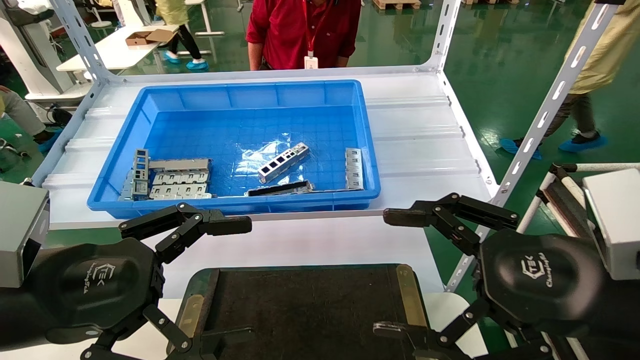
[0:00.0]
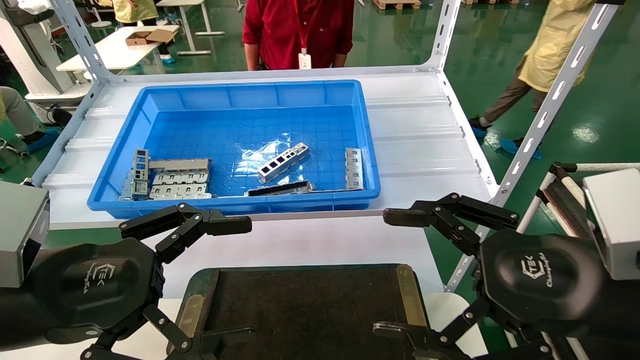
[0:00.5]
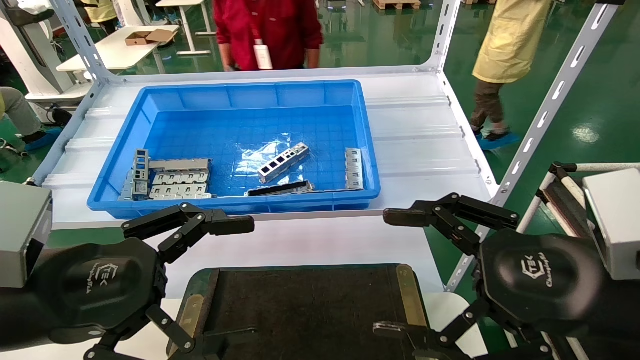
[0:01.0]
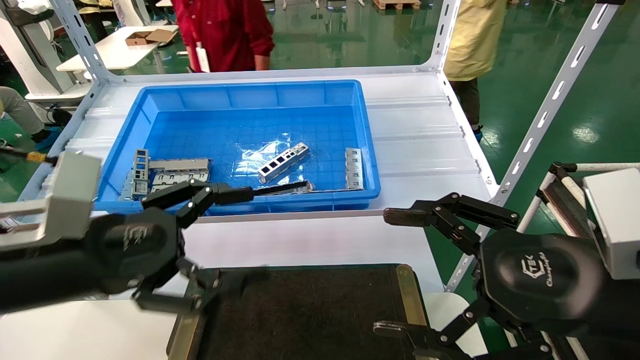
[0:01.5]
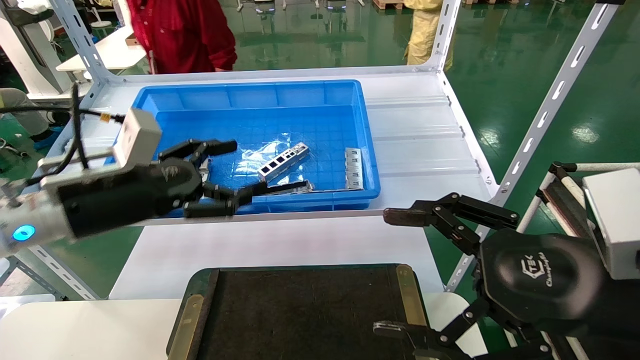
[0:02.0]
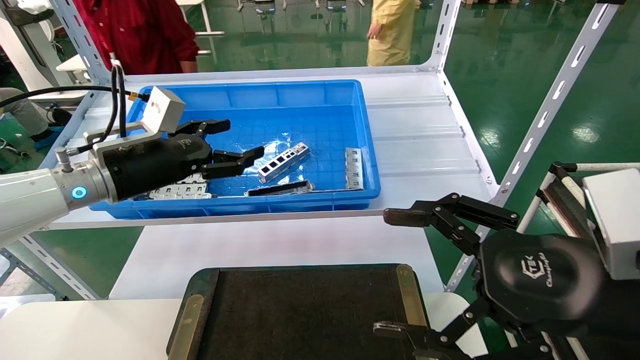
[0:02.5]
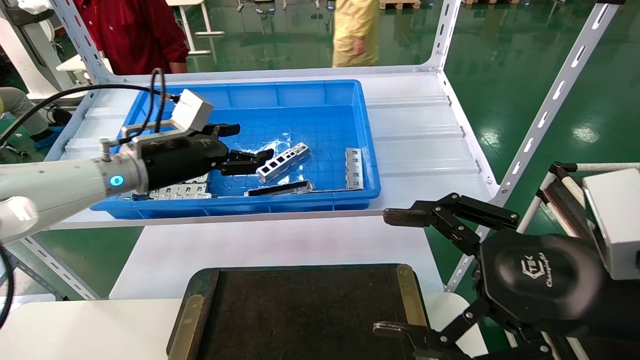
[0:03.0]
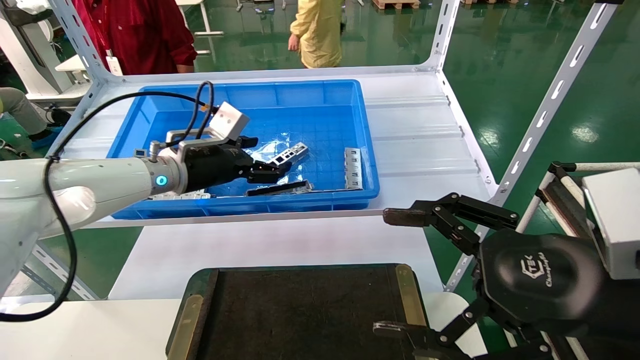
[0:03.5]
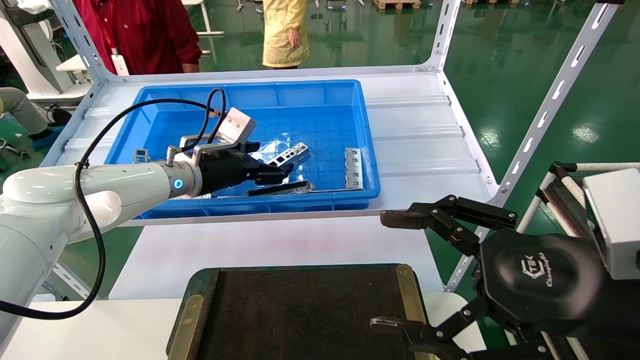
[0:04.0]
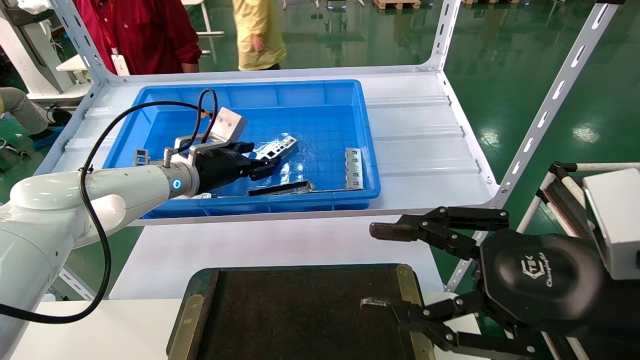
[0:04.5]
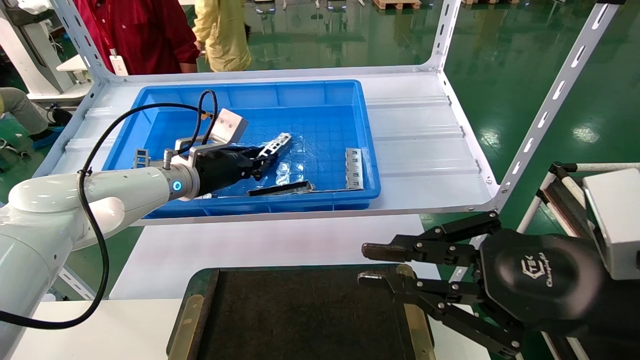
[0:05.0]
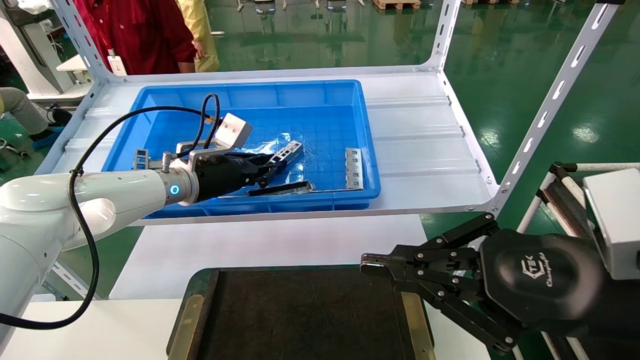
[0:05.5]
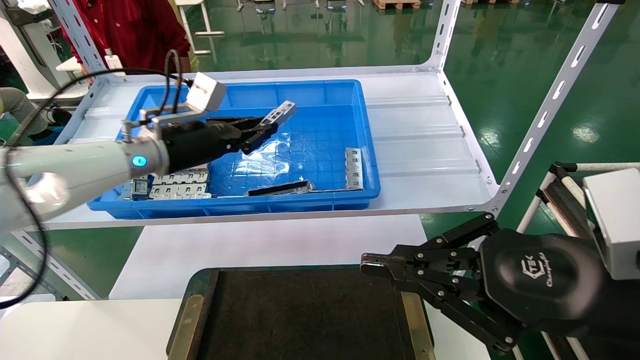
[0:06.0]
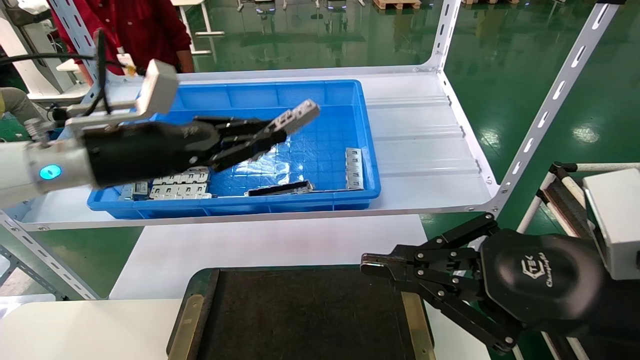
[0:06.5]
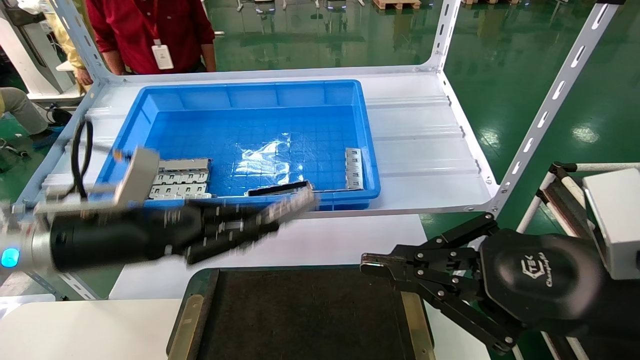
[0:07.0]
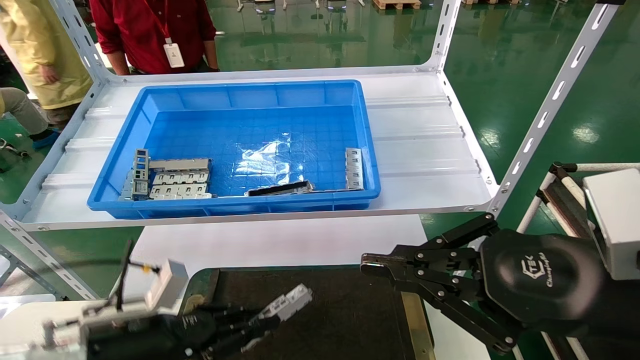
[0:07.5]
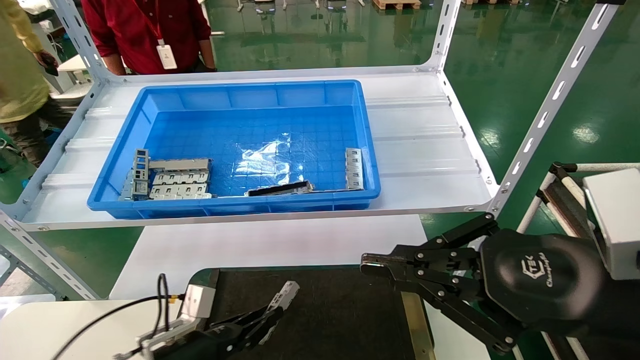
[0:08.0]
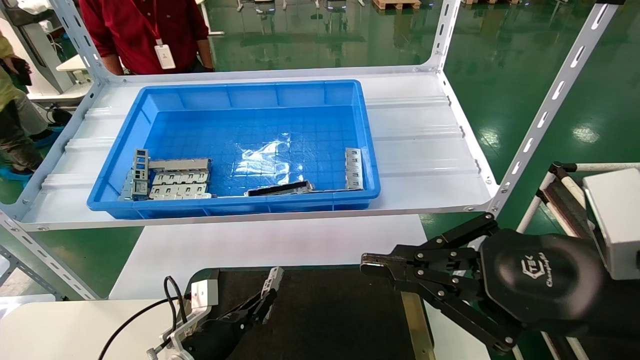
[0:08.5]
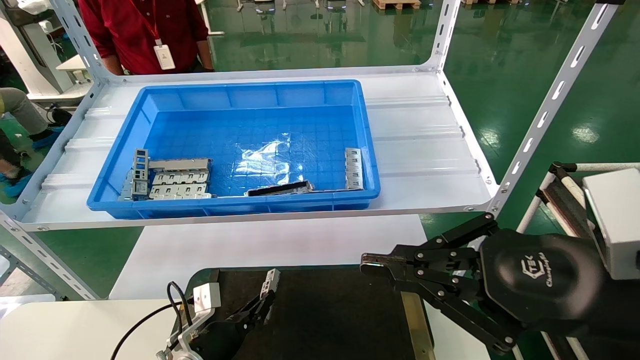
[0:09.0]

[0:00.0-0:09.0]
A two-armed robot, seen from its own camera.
Task of the whole recording: Grasp the part with one hand and place it on the black container.
Step, 0:01.5 to 0:04.5: Pick up the front USB bracket from the feeding area.
0:00.0 to 0:02.0: The left gripper goes about 15 cm forward.
0:02.0 to 0:04.5: The left gripper heads forward, covering approximately 15 cm.
0:04.5 to 0:07.0: The right gripper closes up. Meanwhile the left gripper heads backward, covering roughly 20 cm, and closes up.
0:07.0 to 0:09.0: The left gripper goes some 30 cm downward.

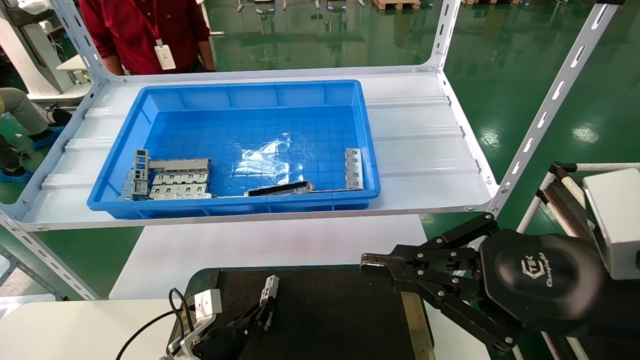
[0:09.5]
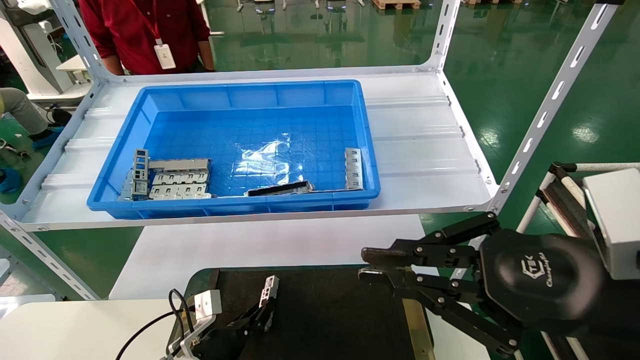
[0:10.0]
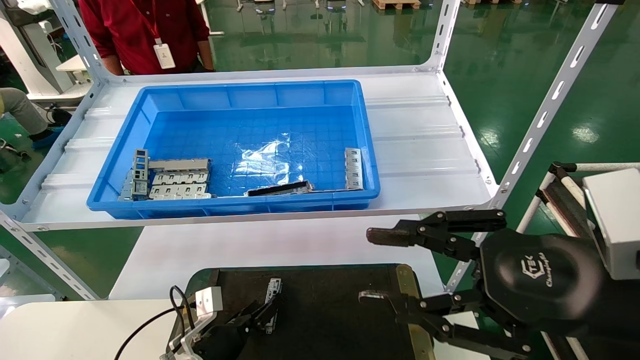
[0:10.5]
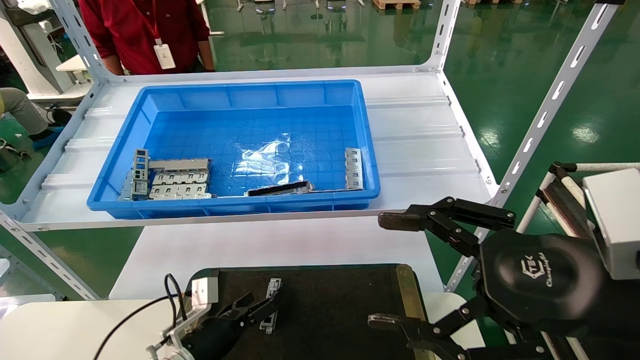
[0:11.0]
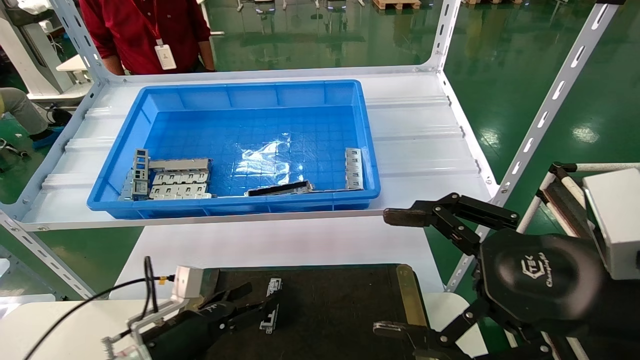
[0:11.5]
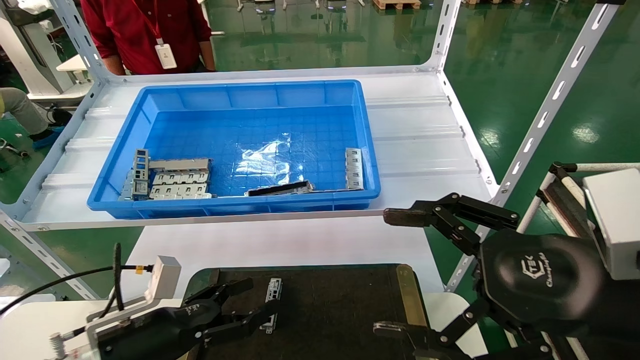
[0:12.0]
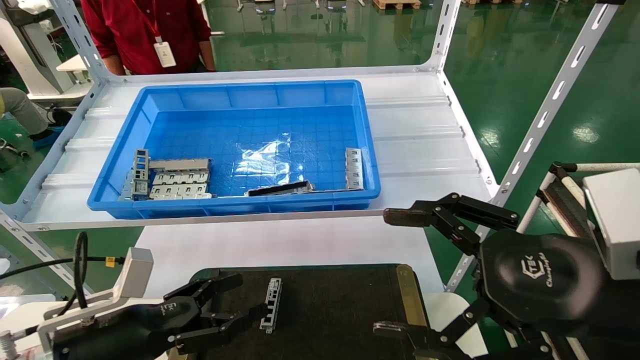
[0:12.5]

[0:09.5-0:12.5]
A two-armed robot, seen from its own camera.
Task of the whole recording: Grasp the part with one hand and place it on the black container.
0:09.5 to 0:11.0: The left gripper opens. Meanwhile the right gripper opens.
0:11.0 to 0:12.5: The left gripper moves upward, backward and to the left, about 20 cm.

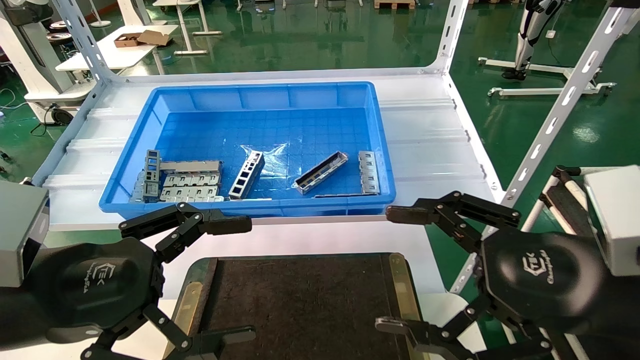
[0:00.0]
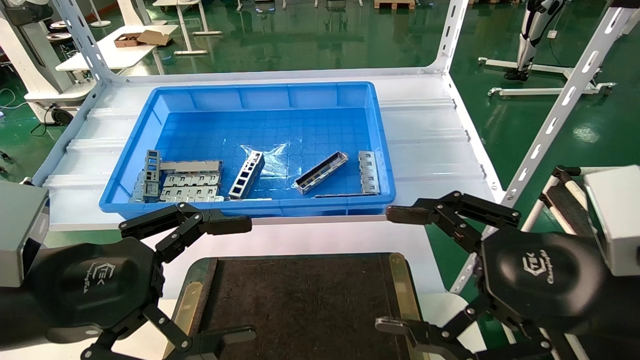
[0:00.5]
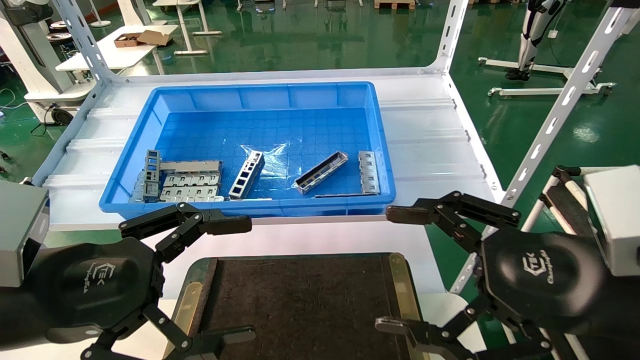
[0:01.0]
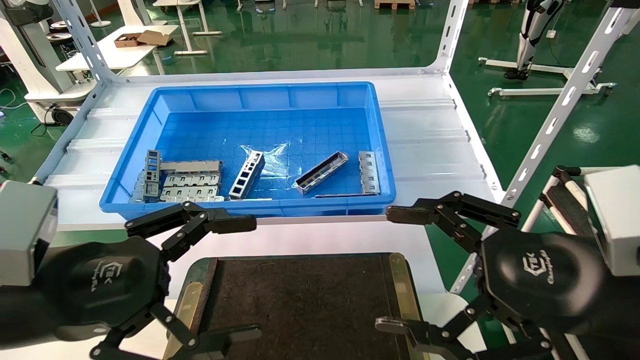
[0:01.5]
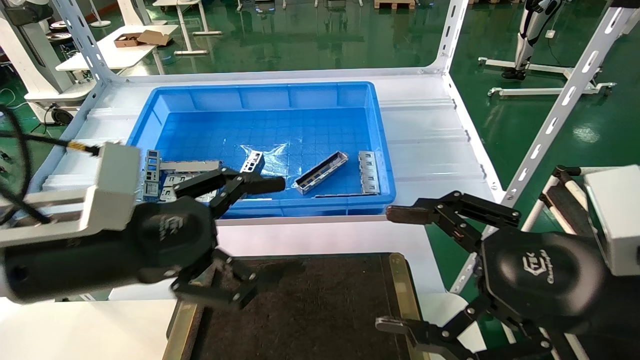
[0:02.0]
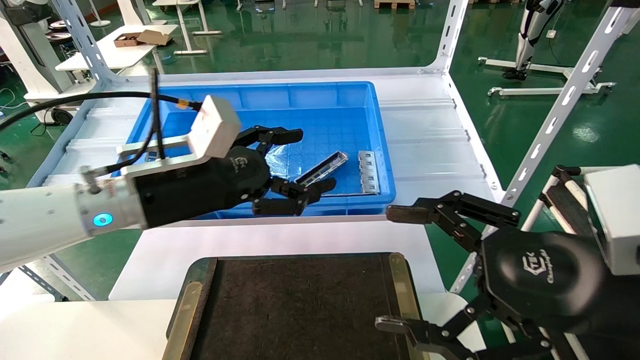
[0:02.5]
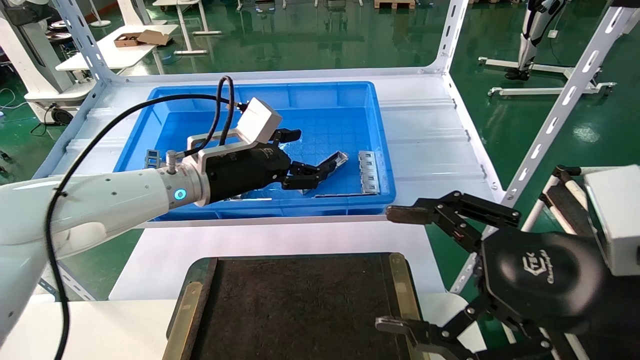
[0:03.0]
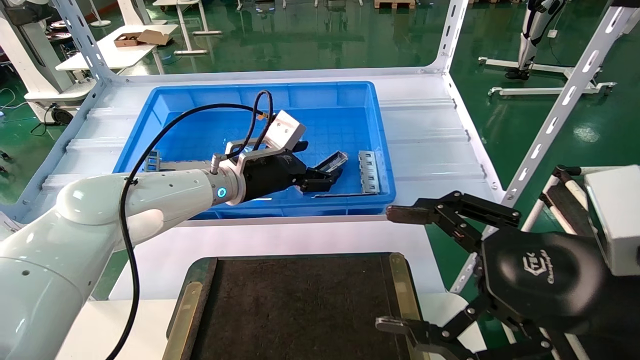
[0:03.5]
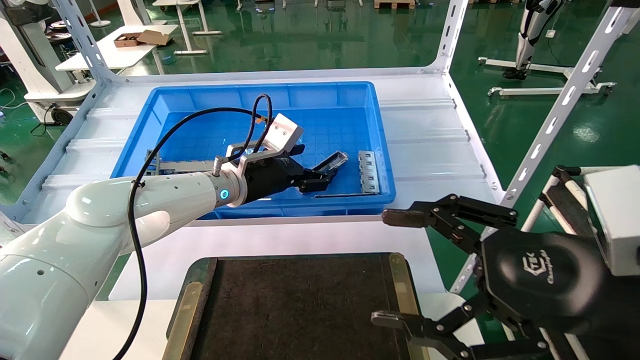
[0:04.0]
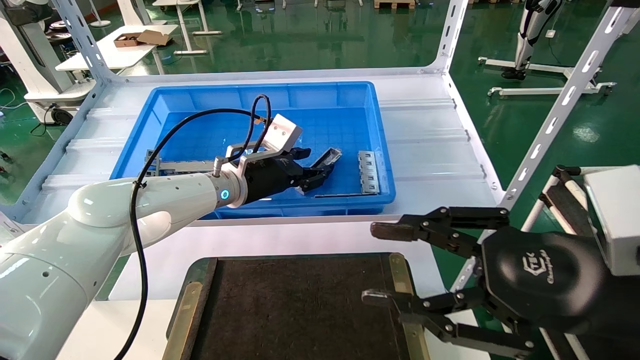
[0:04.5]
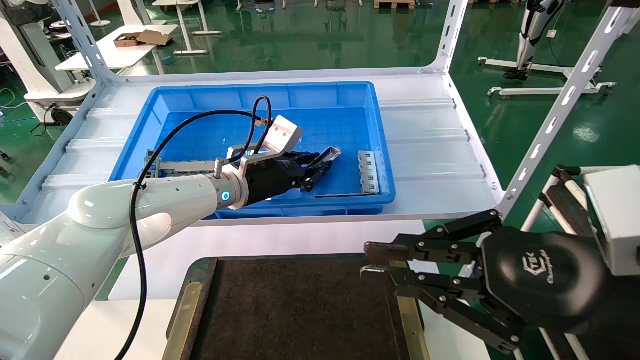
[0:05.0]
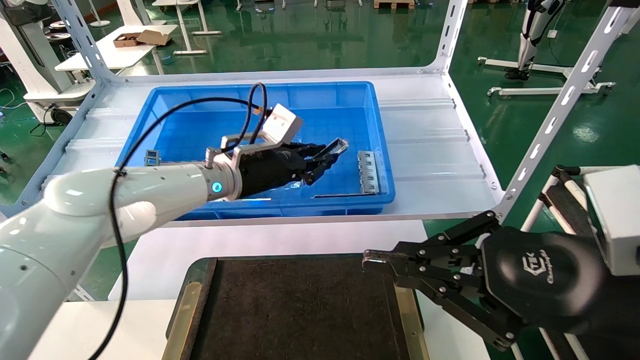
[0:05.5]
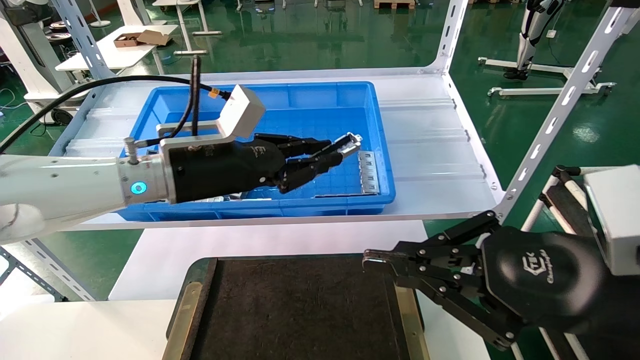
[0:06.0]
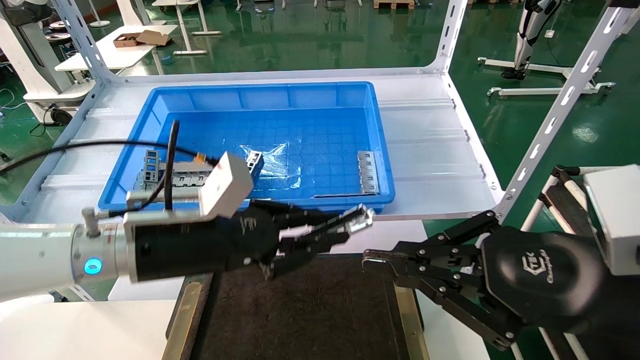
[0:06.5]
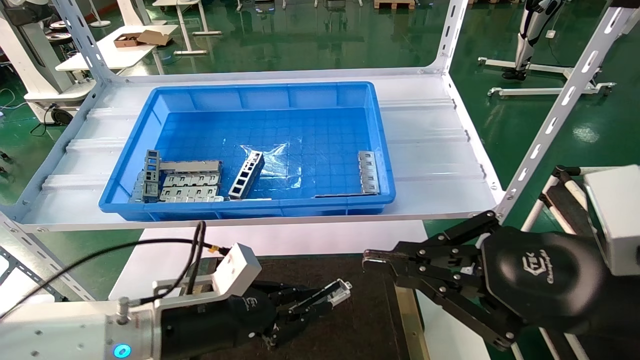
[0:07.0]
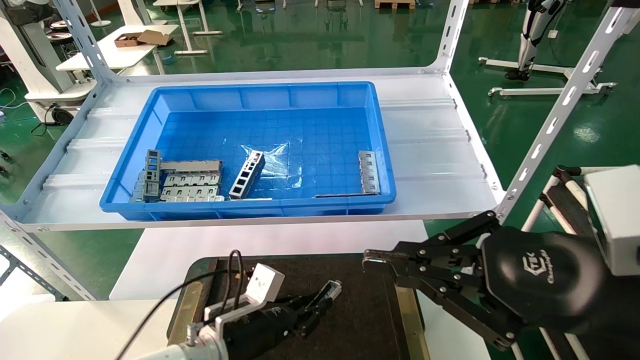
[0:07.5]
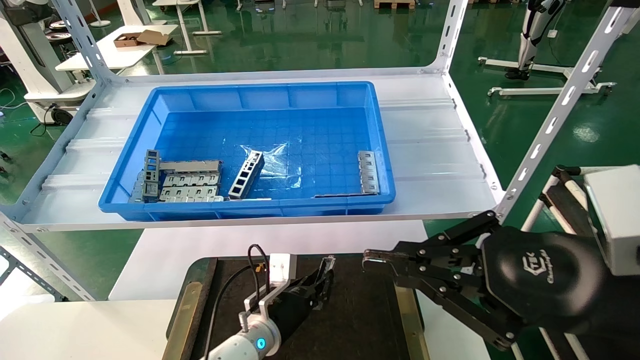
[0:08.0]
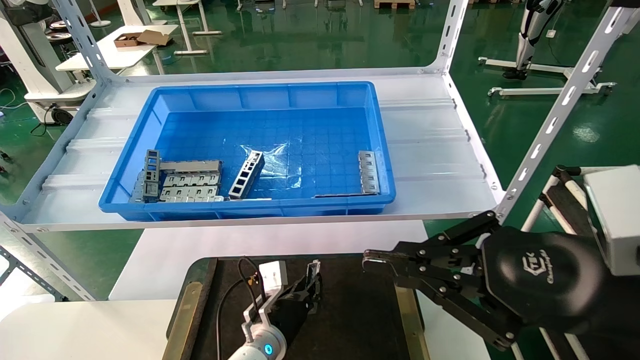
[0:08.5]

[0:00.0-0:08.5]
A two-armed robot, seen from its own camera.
Task of the whole recording: Grasp the part with one hand and place it on the black container.
Step, 0:02.0 to 0:05.5: Pick up the front USB bracket from the feeding area.
0:00.0 to 0:02.0: The left gripper shifts approximately 5 cm forward.
0:02.0 to 0:04.0: The left gripper heads forward and to the right, covering roughly 25 cm.
0:04.0 to 0:06.5: The right gripper closes. Meanwhile the left gripper heads backward, covering approximately 20 cm, and closes up.
0:06.5 to 0:08.5: The left gripper is displaced downward and forward by roughly 30 cm.
